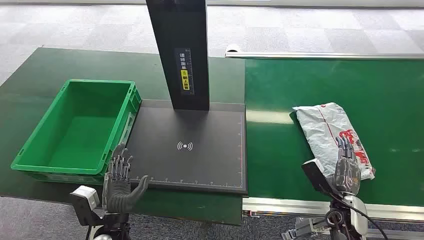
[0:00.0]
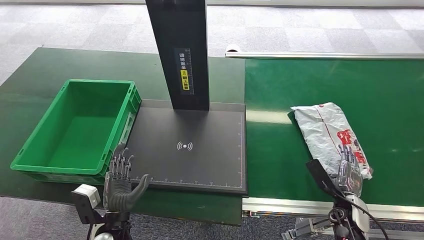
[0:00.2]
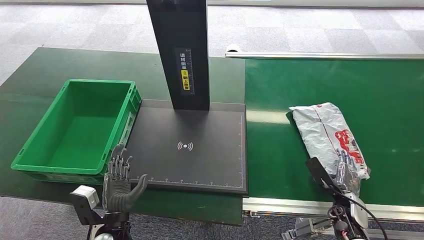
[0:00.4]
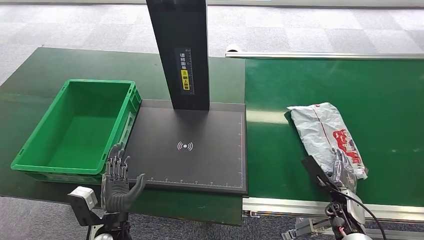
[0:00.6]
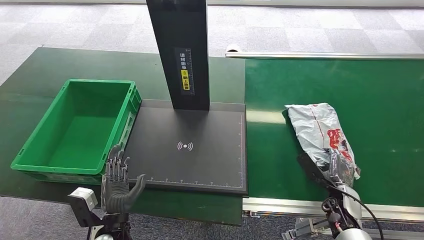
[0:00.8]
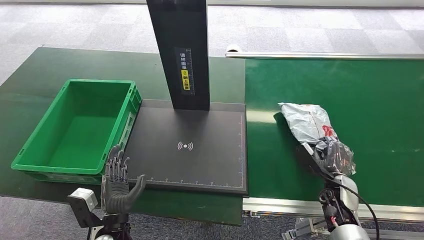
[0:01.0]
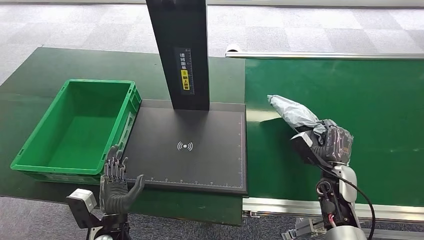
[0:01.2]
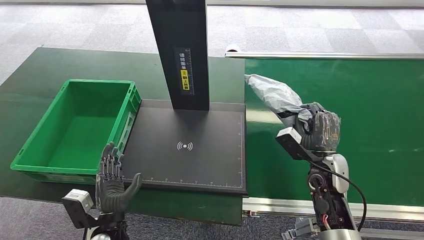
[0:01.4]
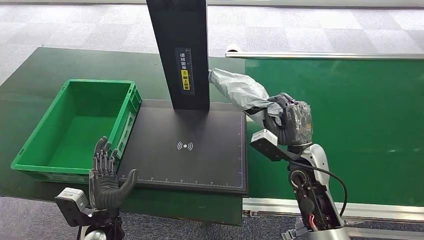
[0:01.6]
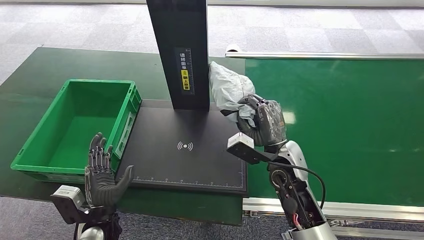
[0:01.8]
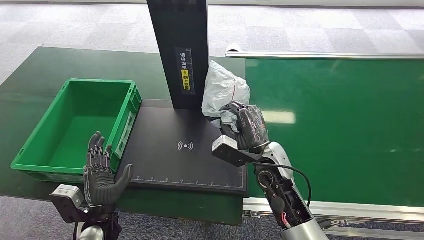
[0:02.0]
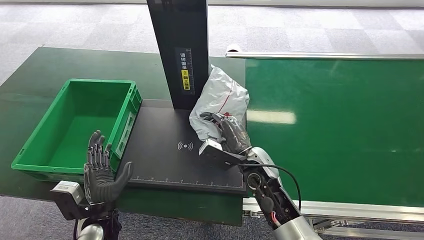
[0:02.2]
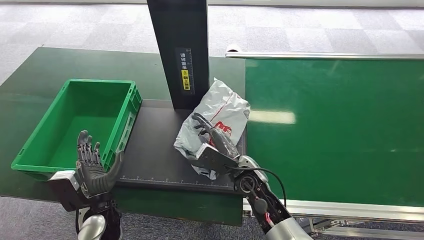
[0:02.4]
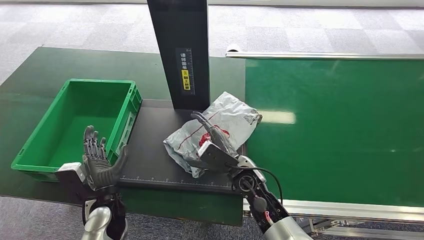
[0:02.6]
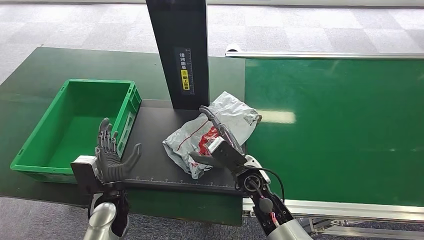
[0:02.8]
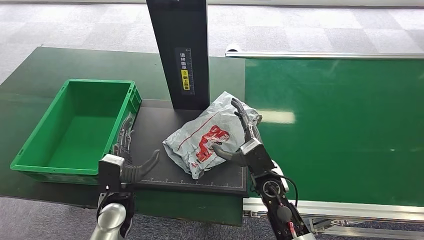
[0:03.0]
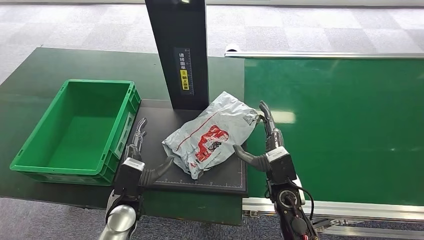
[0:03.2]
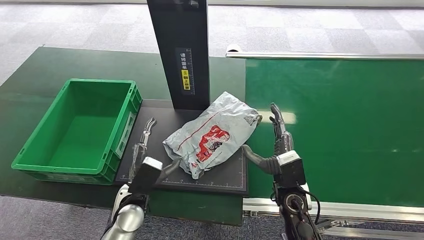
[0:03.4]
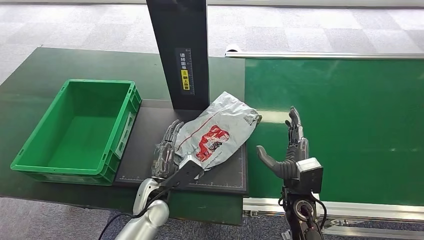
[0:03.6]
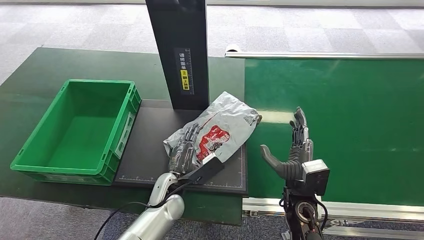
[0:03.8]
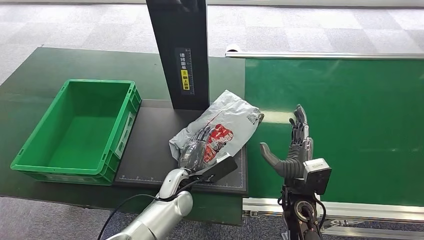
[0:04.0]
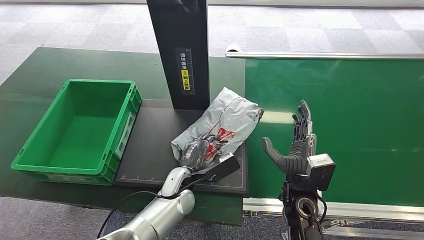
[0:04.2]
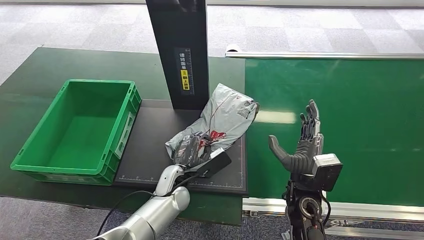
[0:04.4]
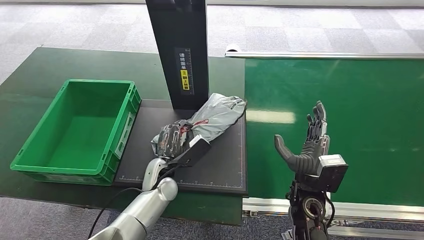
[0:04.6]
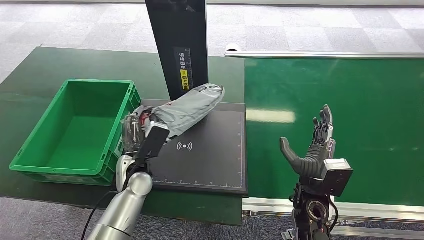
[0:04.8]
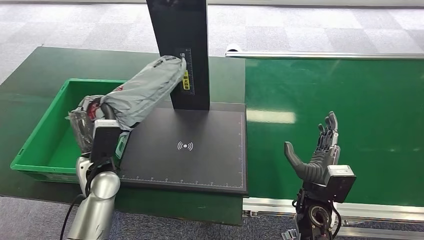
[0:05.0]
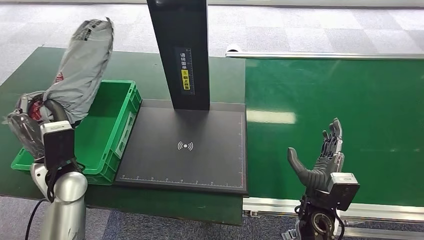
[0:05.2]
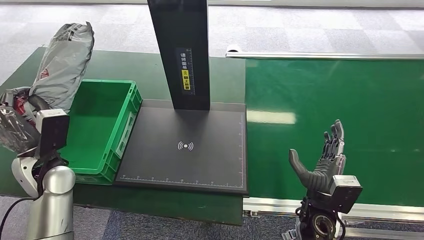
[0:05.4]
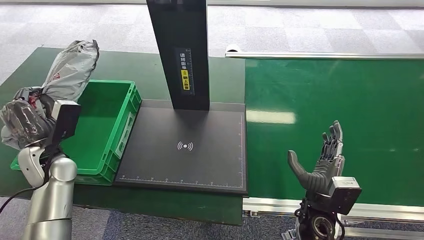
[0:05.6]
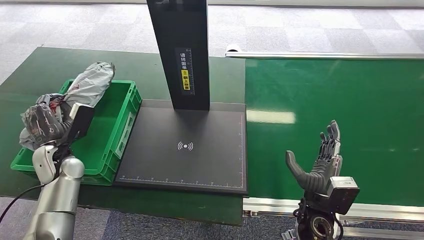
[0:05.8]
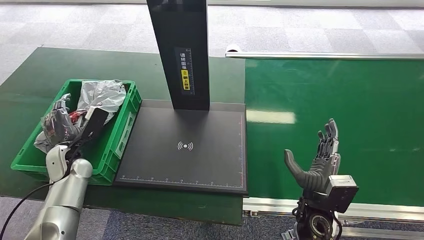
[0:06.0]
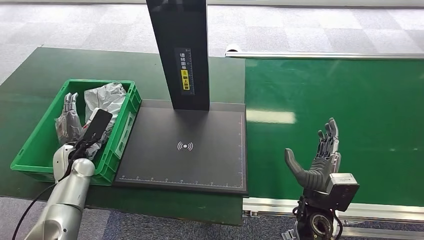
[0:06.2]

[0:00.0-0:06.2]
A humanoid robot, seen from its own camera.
Step, 0:00.0 to 0:01.2: Pick up the package from the conveyor belt.
Step, 0:01.4 to 0:02.6: Place the package onto the inbound machine.
Step, 0:02.8 to 0:04.8: Pick up the package from the inbound machine.
Step, 0:05.0 to 0:06.2: Place the package into the parcel locker.
0:01.6 to 0:03.2: The right hand is displaced downward and to the left by approximately 10 cm. The left hand shifts roughly 5 cm forward.
0:03.2 to 0:04.6: The left hand shifts roughly 10 cm forward and to the right.
0:04.6 to 0:06.2: The left hand travels to the left by approximately 25 cm.
